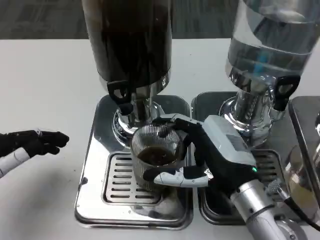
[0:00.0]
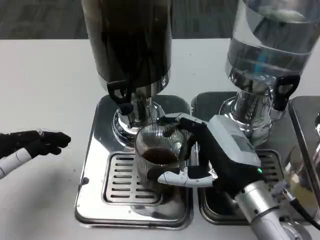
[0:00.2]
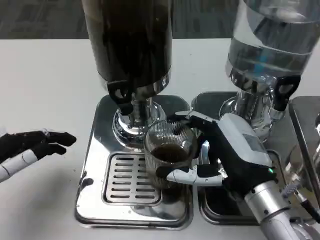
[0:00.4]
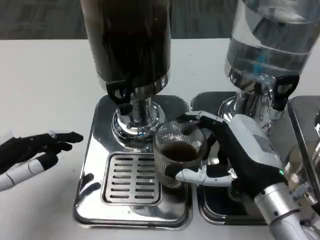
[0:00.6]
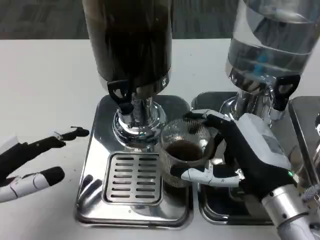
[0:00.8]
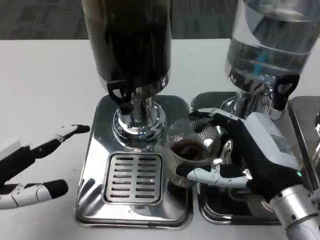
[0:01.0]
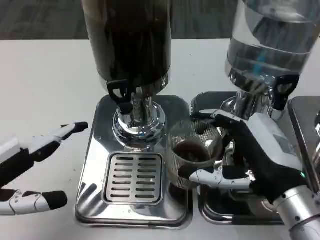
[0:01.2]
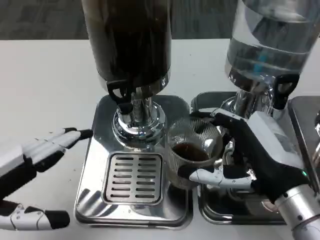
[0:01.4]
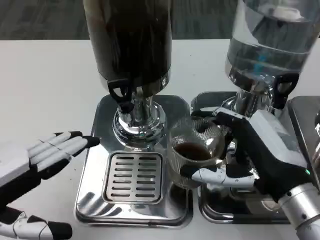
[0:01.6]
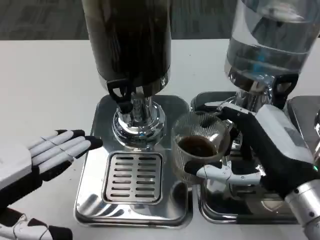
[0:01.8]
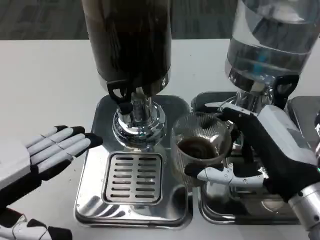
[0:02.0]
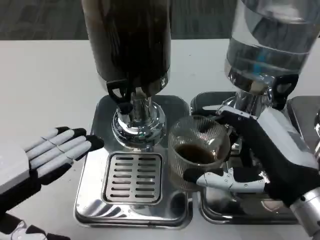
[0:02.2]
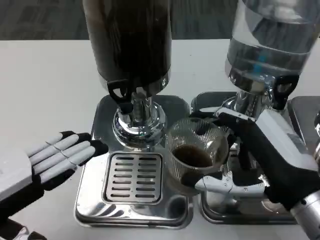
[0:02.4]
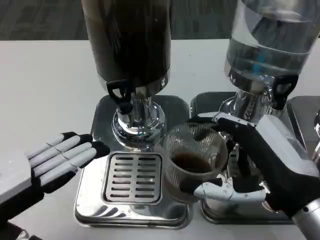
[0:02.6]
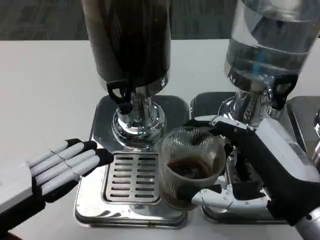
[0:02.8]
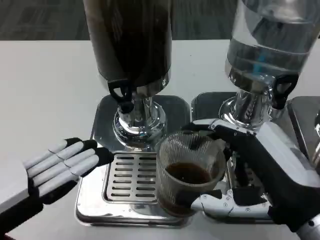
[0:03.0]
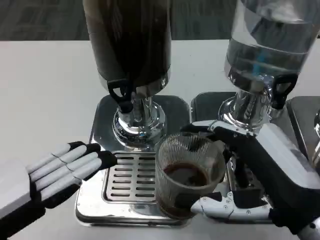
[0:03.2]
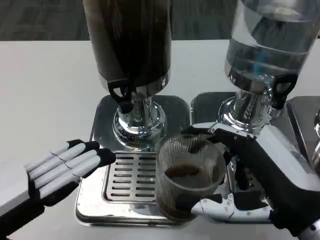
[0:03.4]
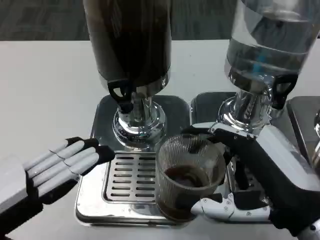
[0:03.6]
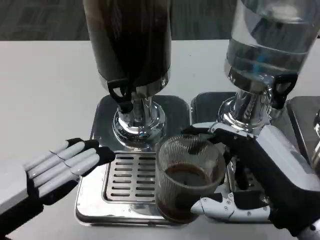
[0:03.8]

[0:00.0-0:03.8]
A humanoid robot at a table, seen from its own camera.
Task of the whole recording: Grasp the cup under the faucet to collect the drink, then remove the cup.
0:00.0 to 0:01.2: The right hand changes place by about 5 cm.

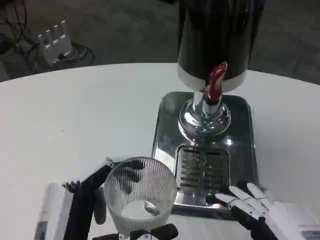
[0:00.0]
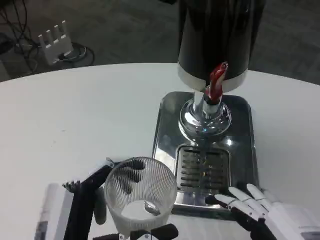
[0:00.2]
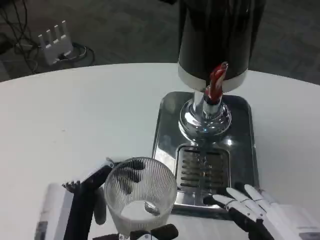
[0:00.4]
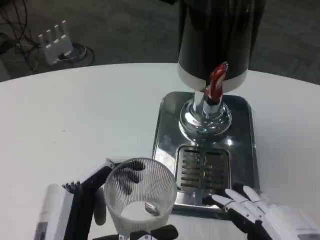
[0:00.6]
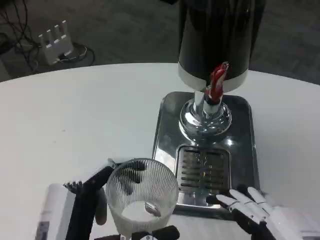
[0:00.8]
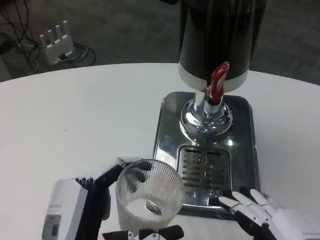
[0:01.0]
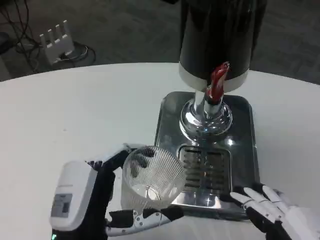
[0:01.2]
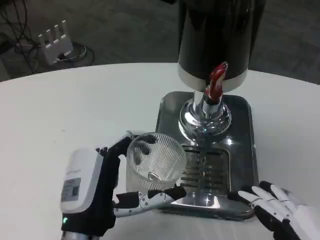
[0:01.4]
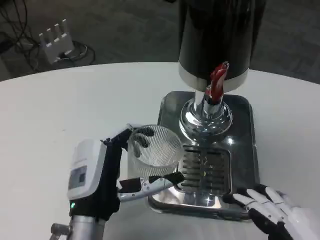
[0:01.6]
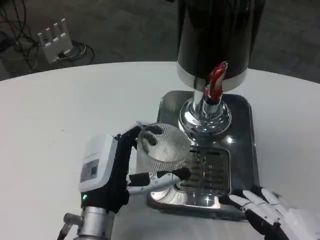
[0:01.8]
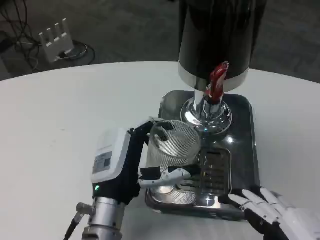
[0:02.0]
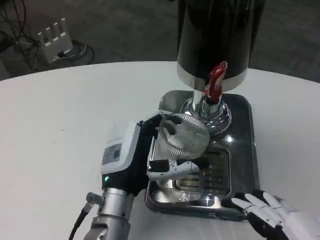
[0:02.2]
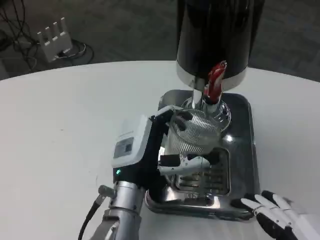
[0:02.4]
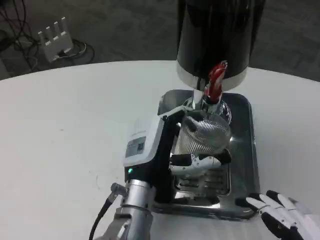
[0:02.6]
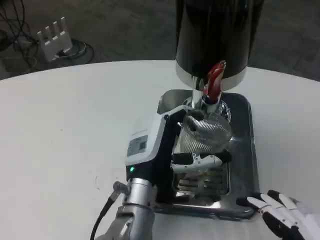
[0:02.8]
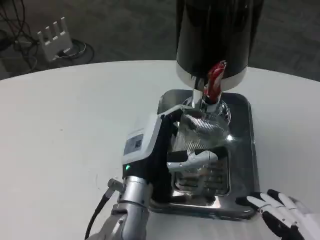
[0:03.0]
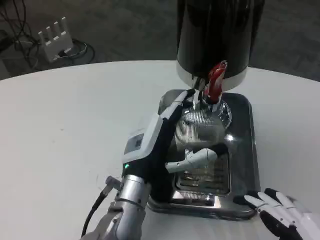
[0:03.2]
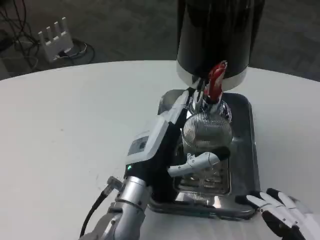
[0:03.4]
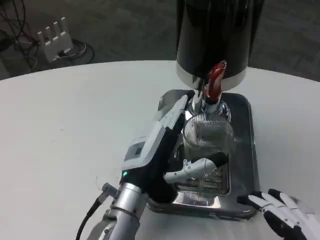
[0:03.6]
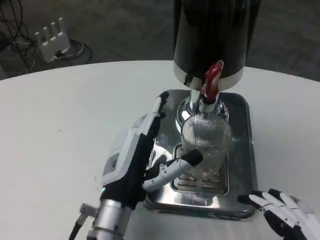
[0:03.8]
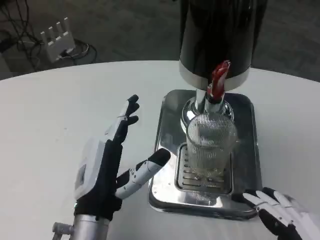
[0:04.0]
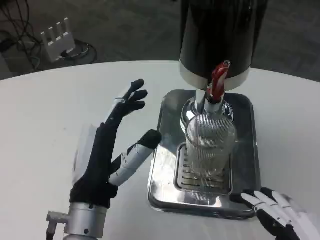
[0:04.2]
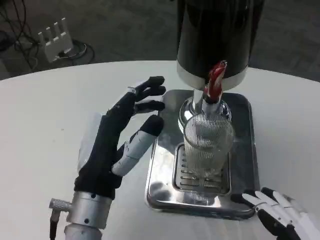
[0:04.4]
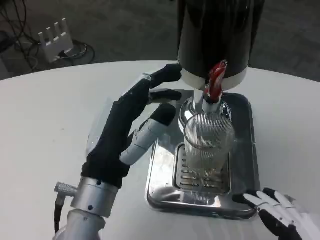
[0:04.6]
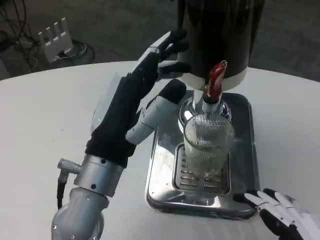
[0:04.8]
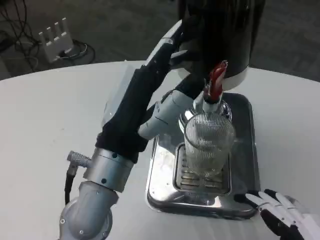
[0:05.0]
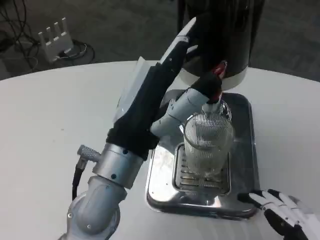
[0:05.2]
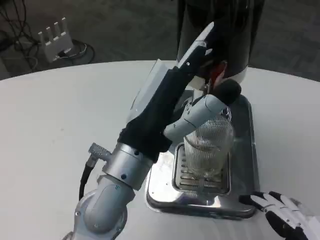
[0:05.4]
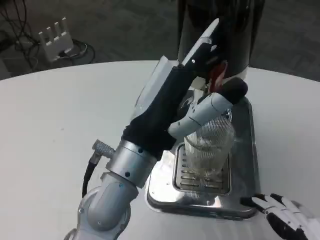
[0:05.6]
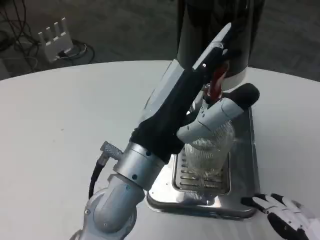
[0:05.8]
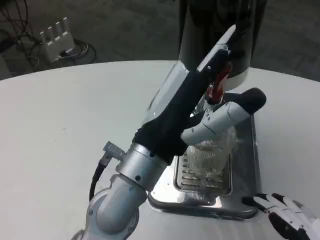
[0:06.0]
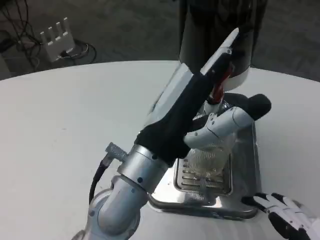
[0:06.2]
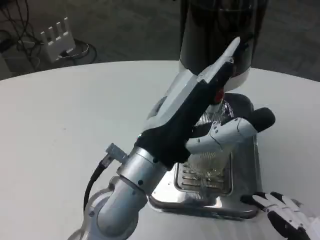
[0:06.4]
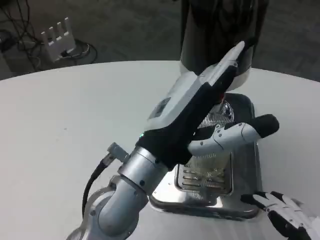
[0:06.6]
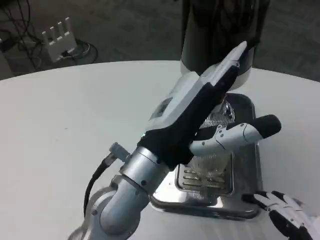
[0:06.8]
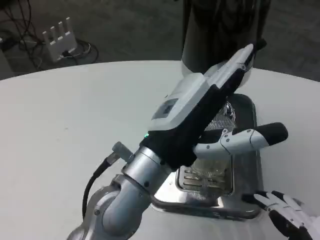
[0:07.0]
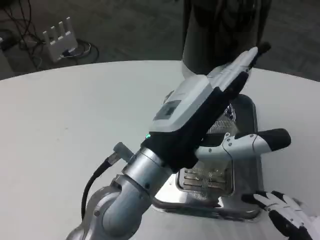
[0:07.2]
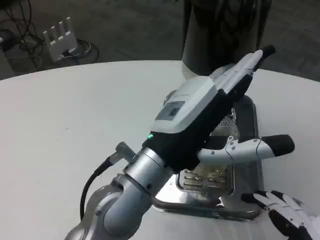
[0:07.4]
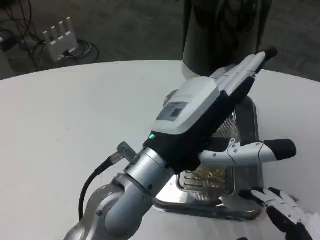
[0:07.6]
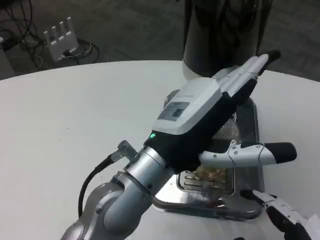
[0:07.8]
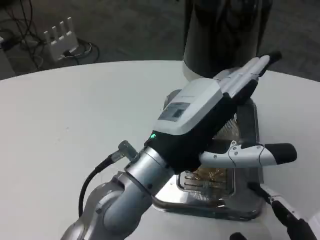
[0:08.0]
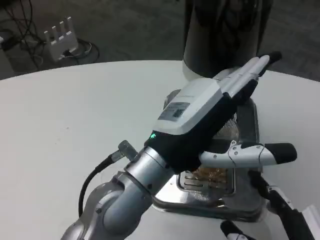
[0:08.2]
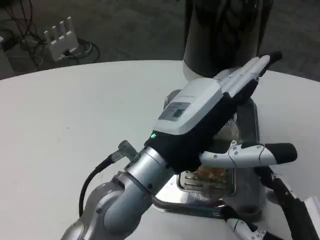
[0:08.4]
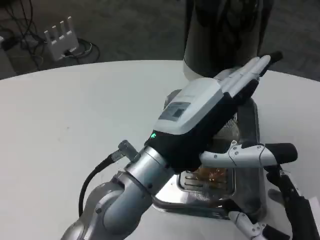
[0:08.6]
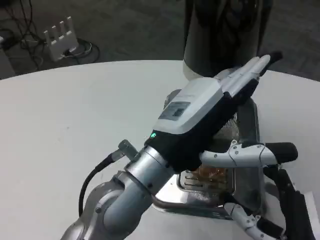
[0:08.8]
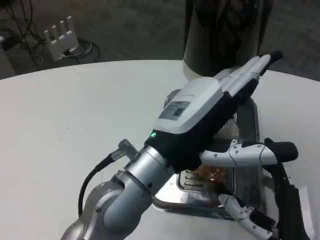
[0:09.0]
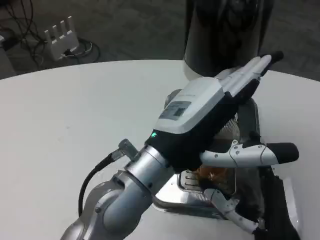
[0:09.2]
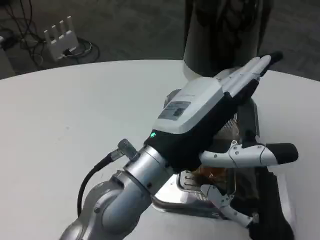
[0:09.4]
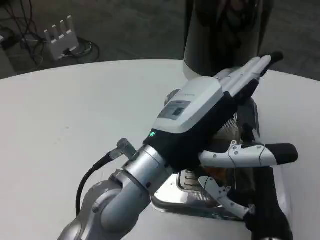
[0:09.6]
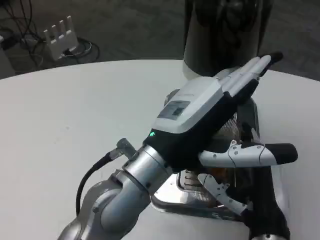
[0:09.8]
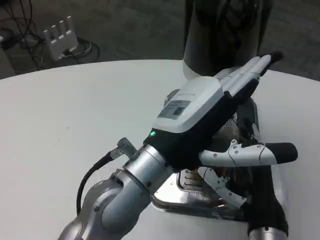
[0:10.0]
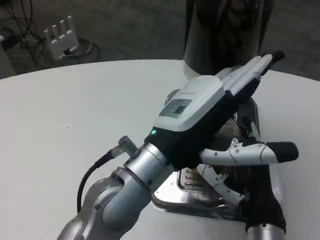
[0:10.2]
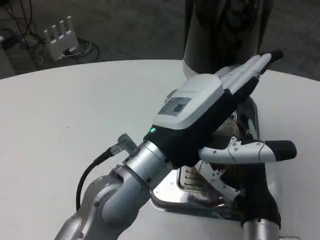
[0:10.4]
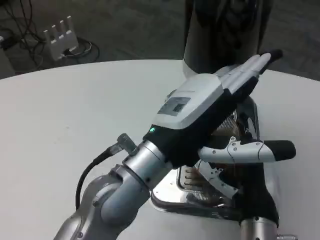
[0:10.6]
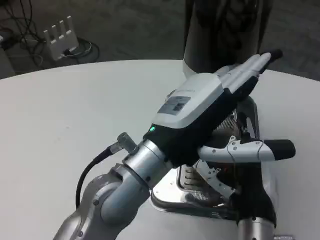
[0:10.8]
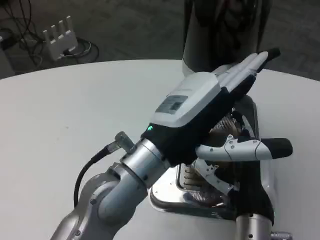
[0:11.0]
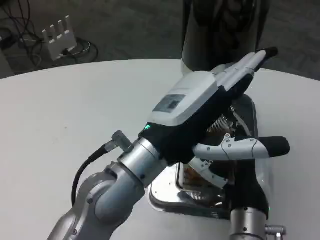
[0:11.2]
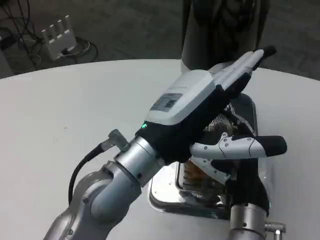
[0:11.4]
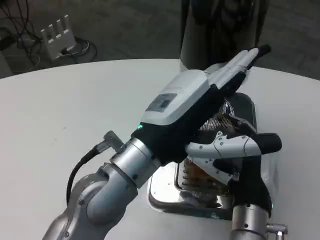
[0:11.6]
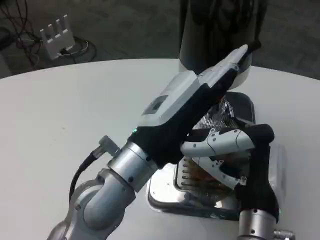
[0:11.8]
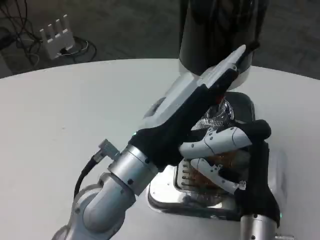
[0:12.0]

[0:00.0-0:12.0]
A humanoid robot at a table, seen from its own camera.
Task of the whole recording: Grasp the cup under the faucet to collect the drink, then remove the cup.
0:00.0 to 0:01.6: The left hand travels forward by some 10 cm.
0:01.6 to 0:03.0: The left hand goes approximately 10 cm to the right and forward.
0:03.0 to 0:04.4: The left hand heads backward, covering approximately 5 cm.
0:04.4 to 0:06.0: The left hand shifts about 10 cm upward and to the right.
0:07.6 to 0:09.0: The right hand shifts about 10 cm forward and to the left.
0:09.0 to 0:10.4: The right hand goes some 5 cm forward.

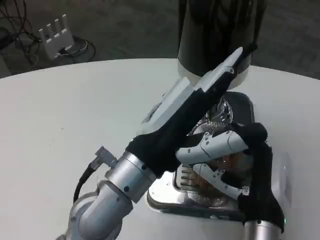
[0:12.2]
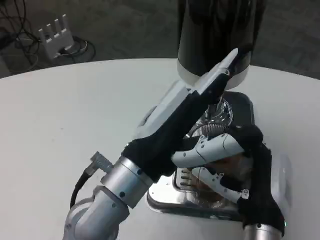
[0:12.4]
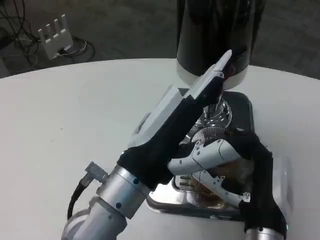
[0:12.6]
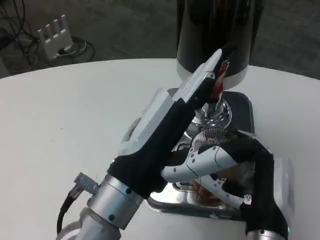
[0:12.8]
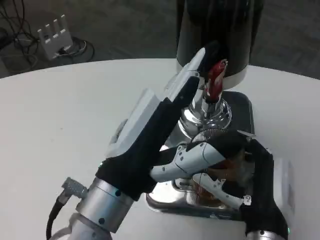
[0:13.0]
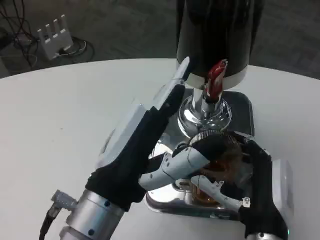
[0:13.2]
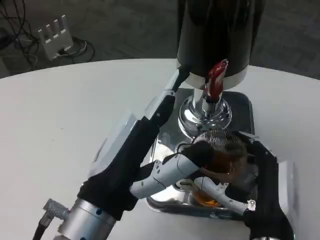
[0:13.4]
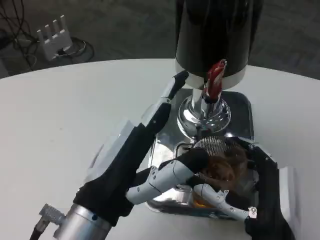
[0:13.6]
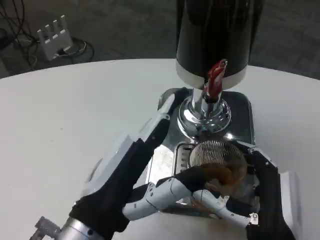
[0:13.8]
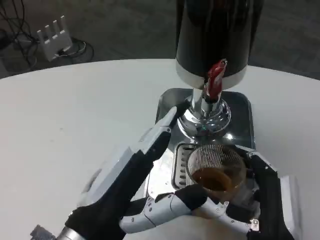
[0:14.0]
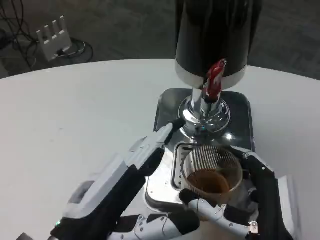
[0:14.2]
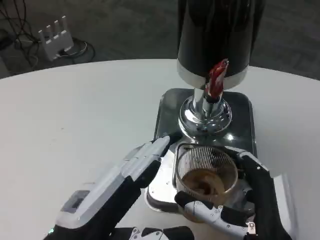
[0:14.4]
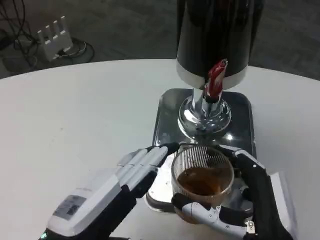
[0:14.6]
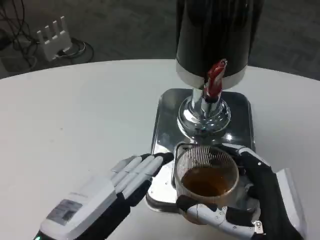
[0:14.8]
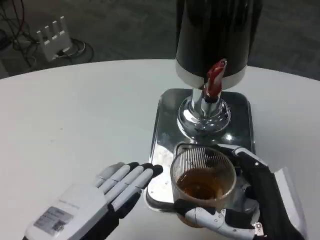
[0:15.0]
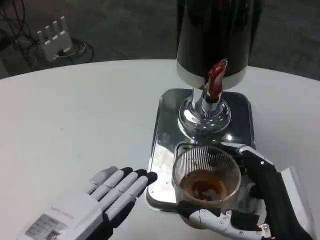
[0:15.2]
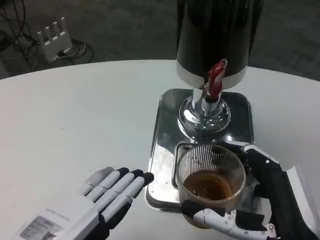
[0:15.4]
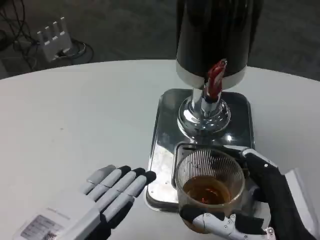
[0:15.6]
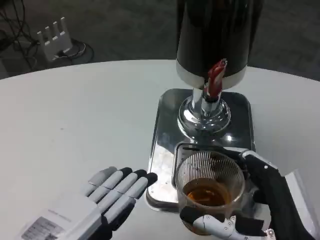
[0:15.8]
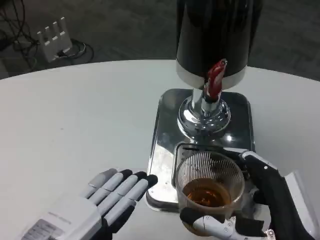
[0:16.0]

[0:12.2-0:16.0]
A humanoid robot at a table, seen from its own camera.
Task of the whole recording: Grasp the cup under the faucet to collect the drink, then remove the cup.
0:12.2 to 0:13.4: The left hand goes some 5 cm backward.
0:13.4 to 0:14.8: The right hand moves roughly 5 cm; the left hand travels to the left by approximately 5 cm.
0:14.8 to 0:16.0: The hands move only a little.

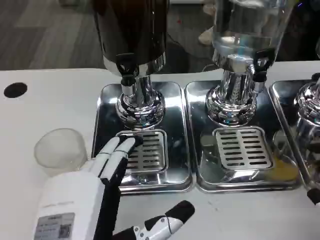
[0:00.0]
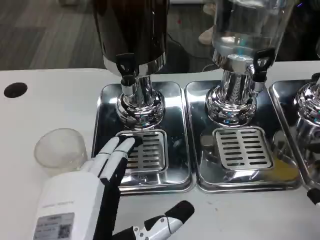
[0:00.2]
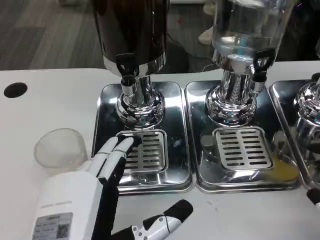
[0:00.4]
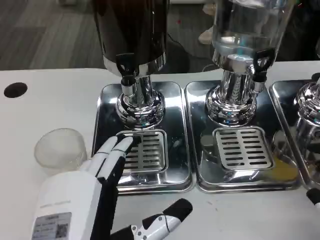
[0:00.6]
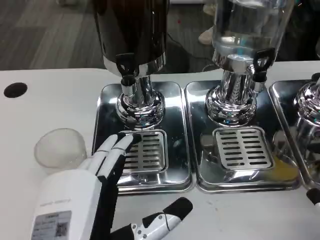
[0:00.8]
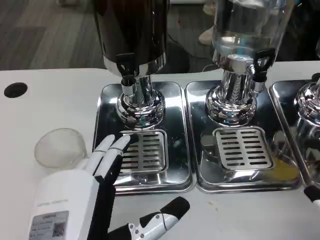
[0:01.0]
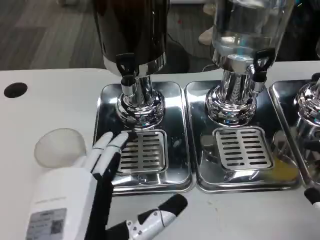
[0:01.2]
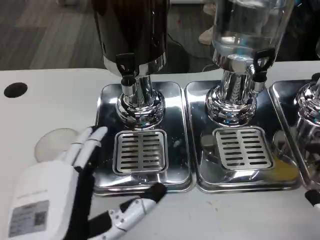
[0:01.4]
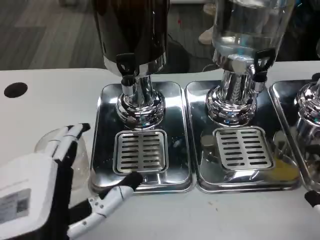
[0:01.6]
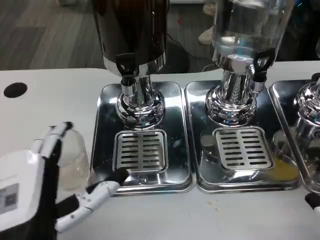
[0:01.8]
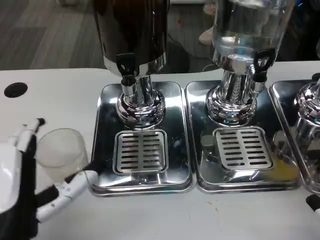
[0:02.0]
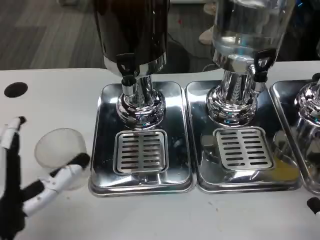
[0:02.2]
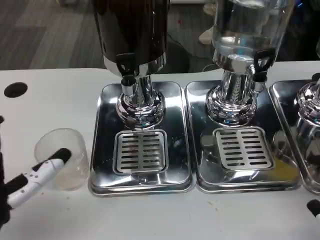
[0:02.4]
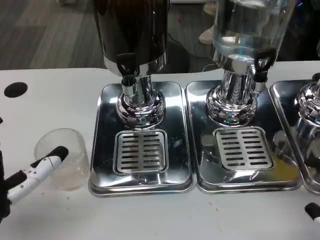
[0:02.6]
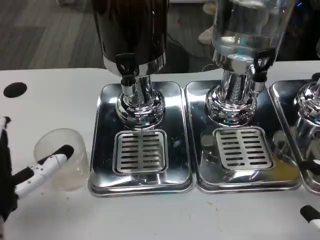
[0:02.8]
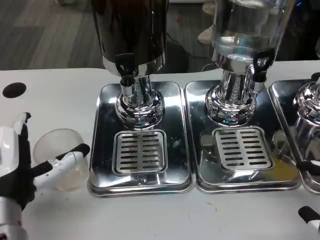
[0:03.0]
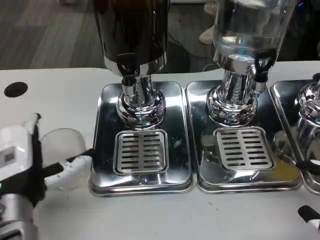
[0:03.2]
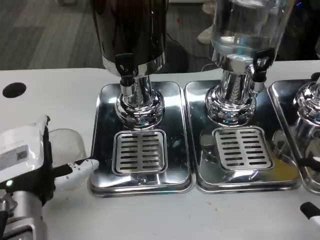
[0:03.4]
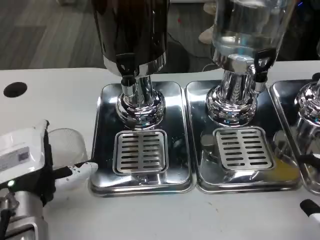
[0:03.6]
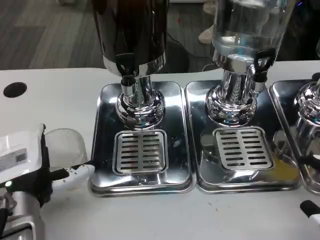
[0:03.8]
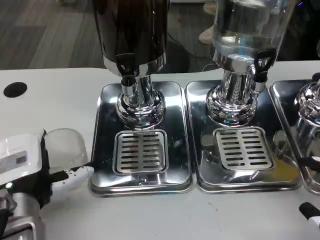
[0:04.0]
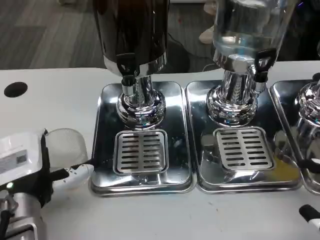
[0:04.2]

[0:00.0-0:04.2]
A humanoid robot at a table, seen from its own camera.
Task of the whole recording: Grasp the cup under the faucet to collect the drink, then remove the cup.
0:00.0 to 0:01.4: The hands move only a little.
0:01.4 to 0:02.8: The left hand is displaced forward and to the left by about 10 cm.
0:02.8 to 0:04.2: The hands make only small movements.
